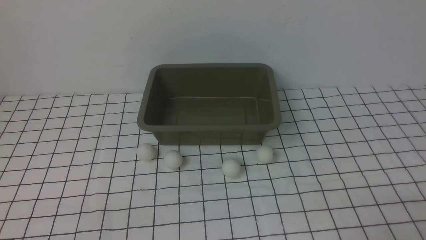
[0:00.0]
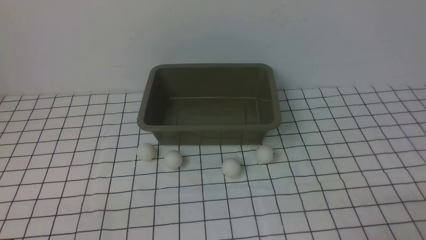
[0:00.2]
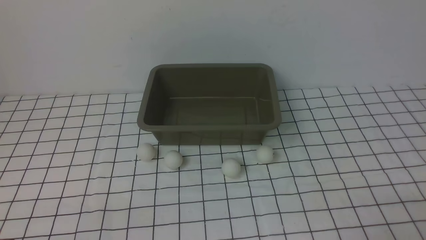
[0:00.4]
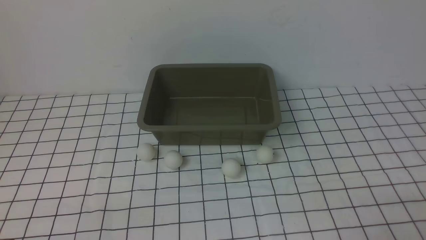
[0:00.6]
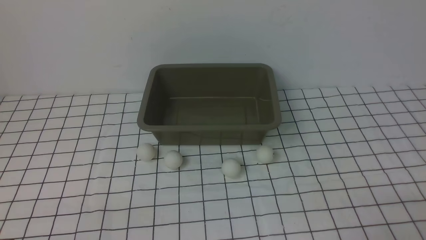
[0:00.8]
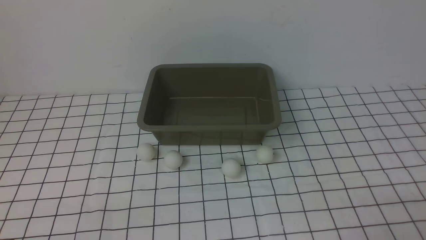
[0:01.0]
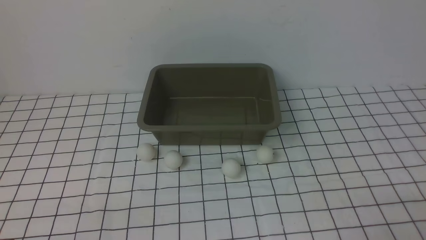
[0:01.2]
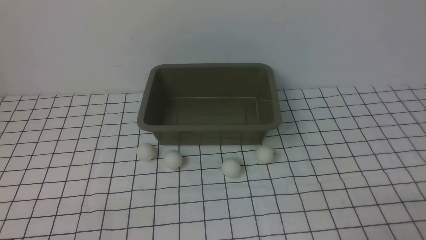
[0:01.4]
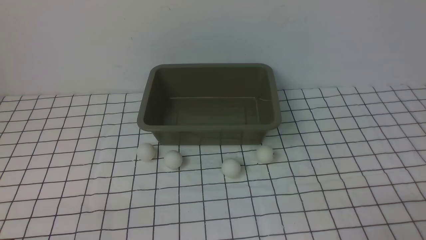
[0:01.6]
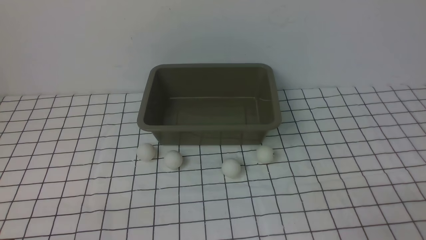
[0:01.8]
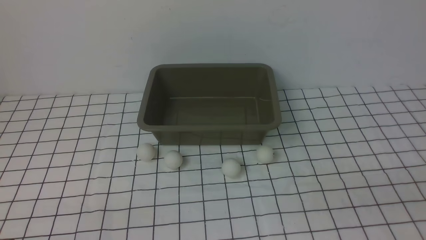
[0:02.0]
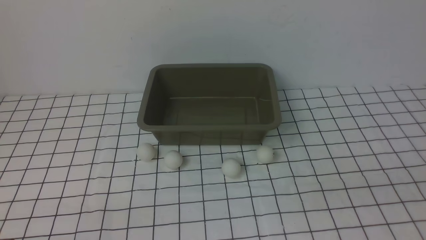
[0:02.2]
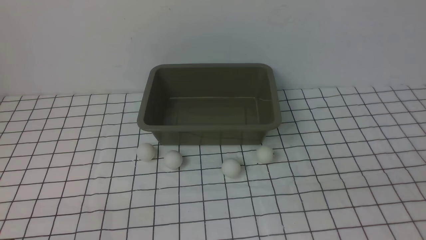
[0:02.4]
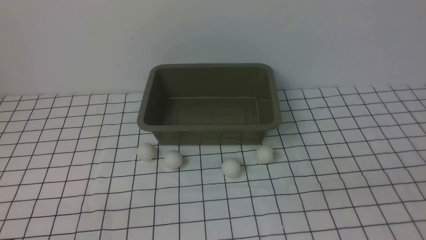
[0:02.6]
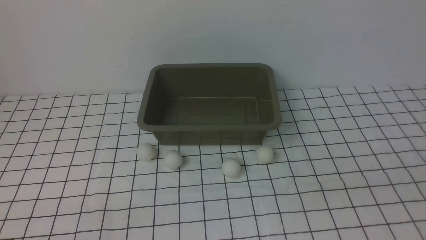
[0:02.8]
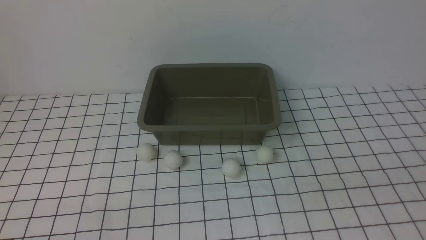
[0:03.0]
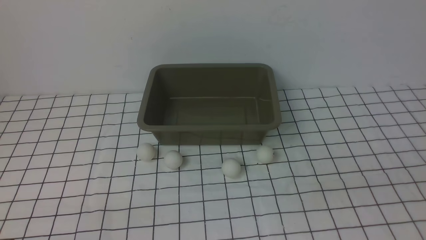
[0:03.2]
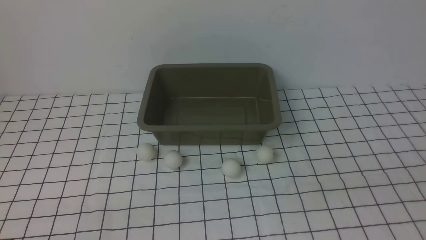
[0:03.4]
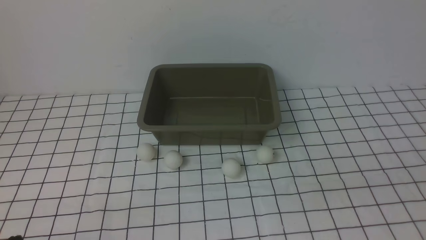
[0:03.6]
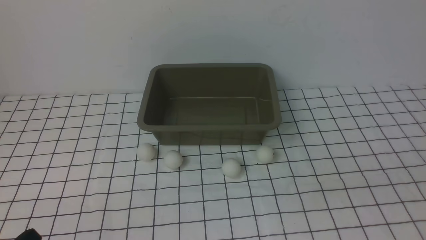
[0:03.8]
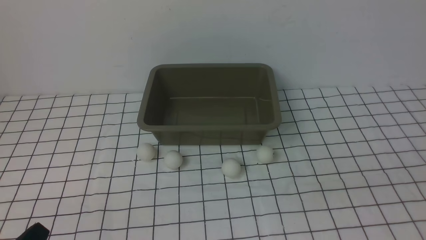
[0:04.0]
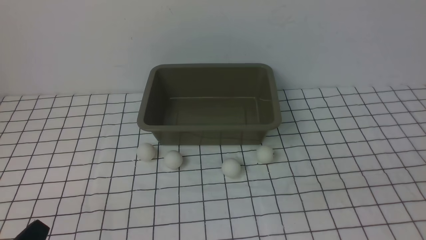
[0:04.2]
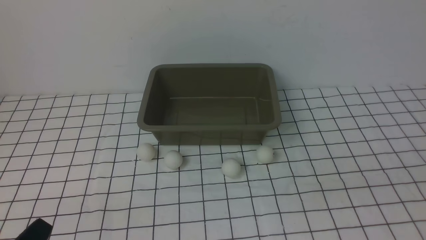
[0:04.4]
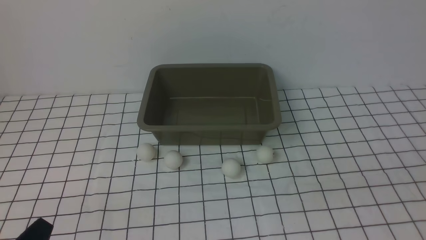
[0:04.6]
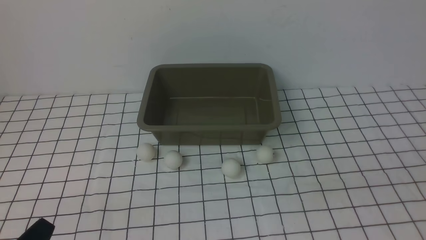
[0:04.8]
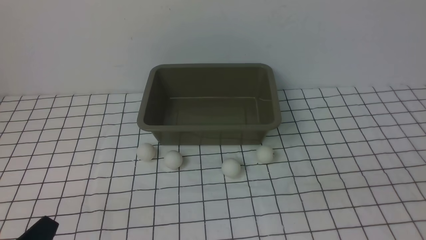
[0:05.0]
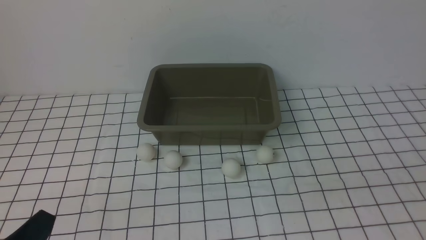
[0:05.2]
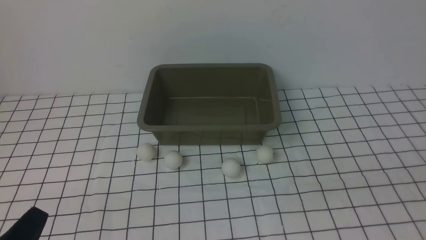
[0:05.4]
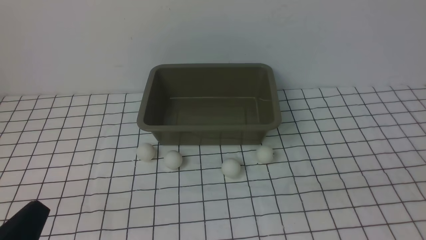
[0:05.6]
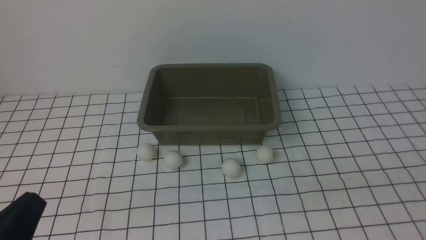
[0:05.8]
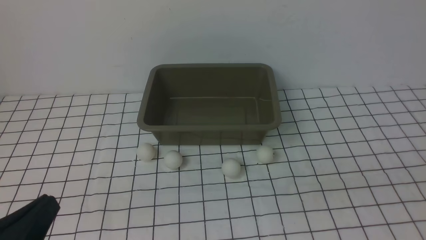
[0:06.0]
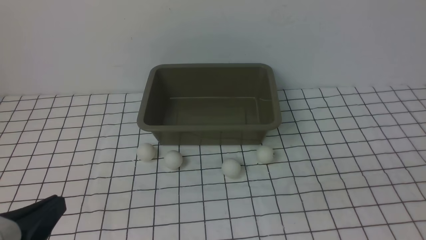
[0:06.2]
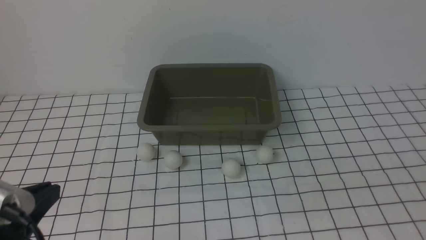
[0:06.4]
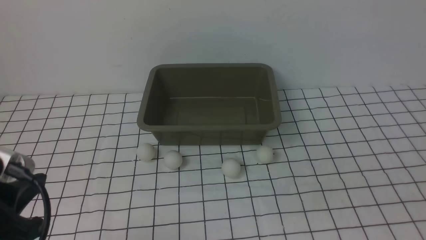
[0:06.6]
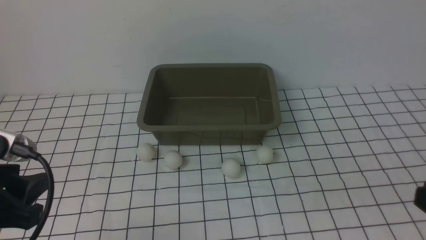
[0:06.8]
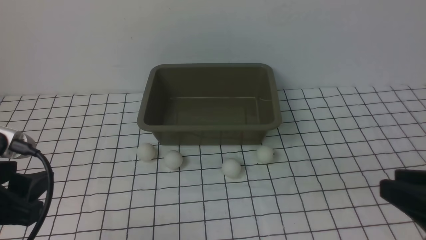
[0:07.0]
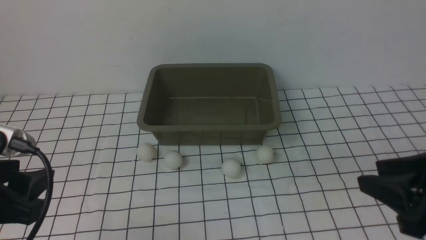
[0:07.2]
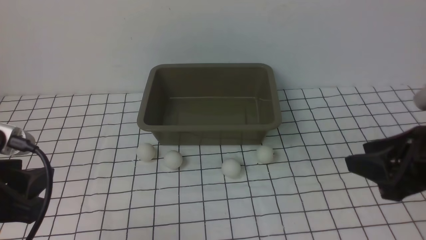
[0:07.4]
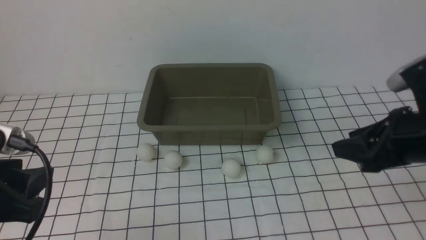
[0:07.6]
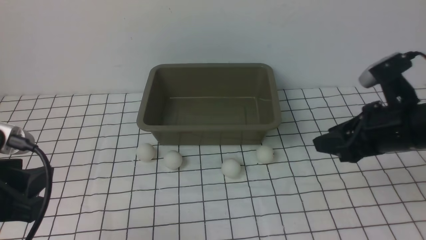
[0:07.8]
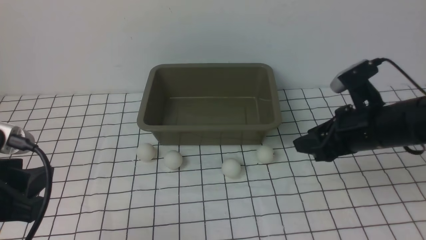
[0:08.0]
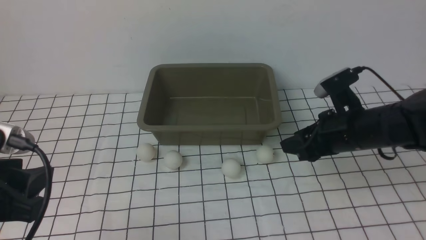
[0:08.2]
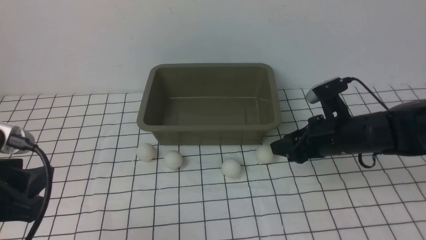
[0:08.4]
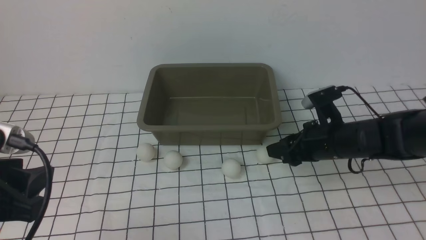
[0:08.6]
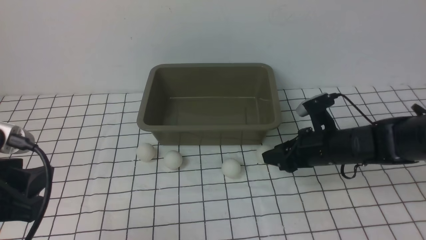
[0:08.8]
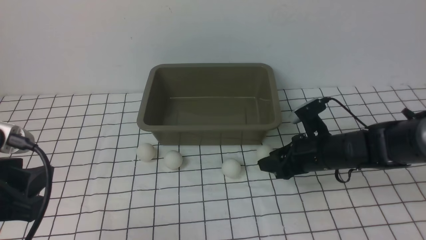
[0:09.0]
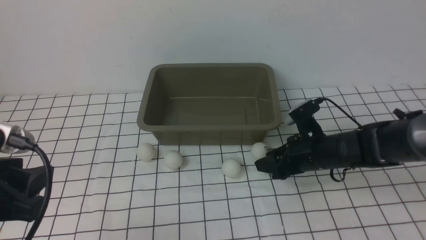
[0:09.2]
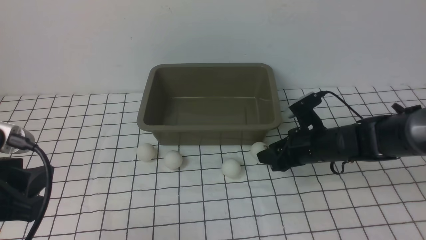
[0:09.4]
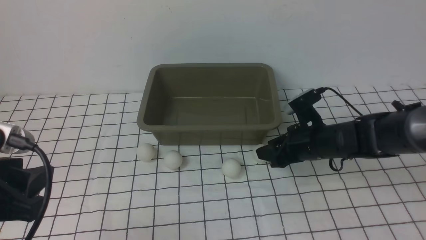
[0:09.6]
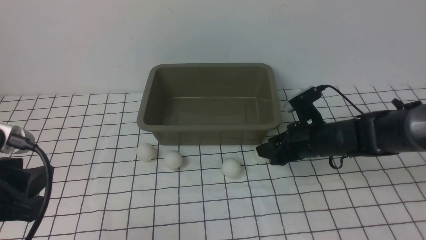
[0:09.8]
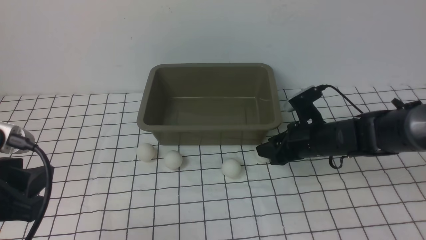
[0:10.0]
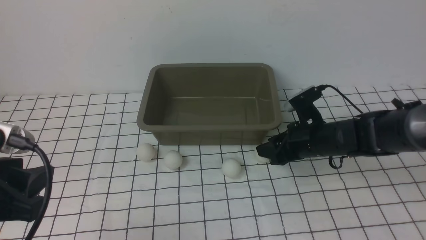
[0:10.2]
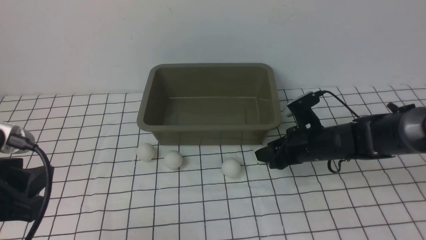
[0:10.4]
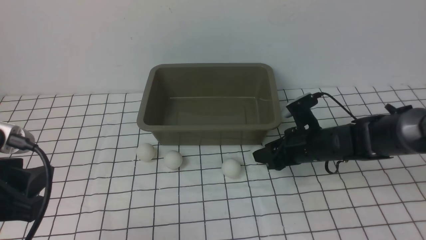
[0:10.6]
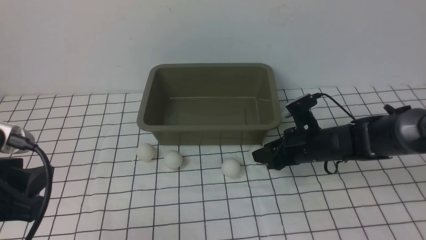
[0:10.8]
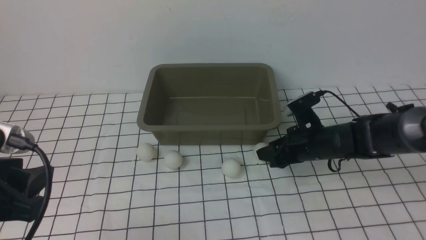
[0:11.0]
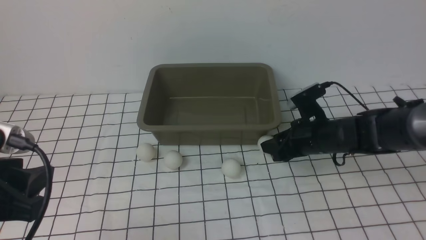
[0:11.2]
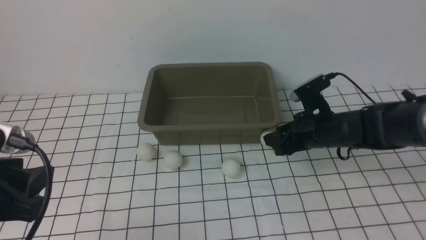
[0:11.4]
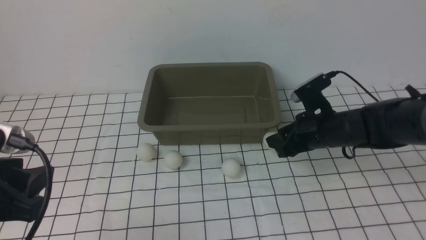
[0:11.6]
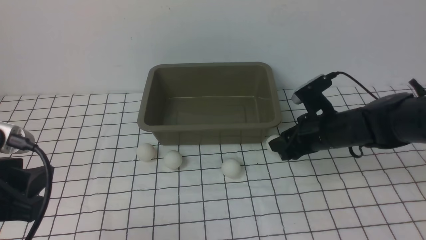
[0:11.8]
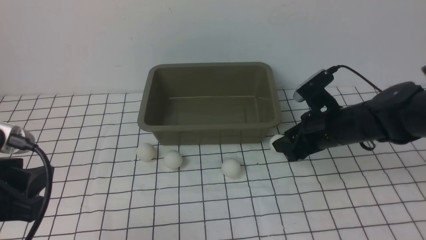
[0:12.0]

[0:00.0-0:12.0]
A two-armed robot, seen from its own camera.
Step, 0:00.0 to 0:11.4: use the right arm to clamp the table tennis ball closest to it.
0:00.0 to 0:01.6: Neither gripper changes place.
0:04.4 to 0:06.0: The left gripper heads upward, covering approximately 5 cm.
0:06.0 to 0:07.6: The right gripper is displaced forward by about 25 cm, and opens up. The left gripper moves forward, some 5 cm, and opens its fingers.
0:07.6 to 0:09.0: The right gripper moves downward, forward and to the left, about 15 cm.
0:09.0 to 0:10.4: The grippers stay close to where they were, moving slightly.
0:10.4 to 0:12.0: The right gripper is displaced upward by some 10 cm.

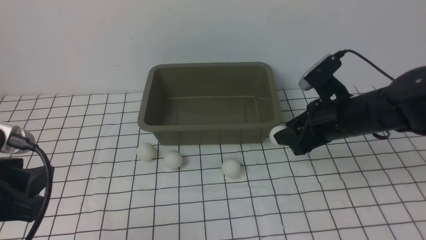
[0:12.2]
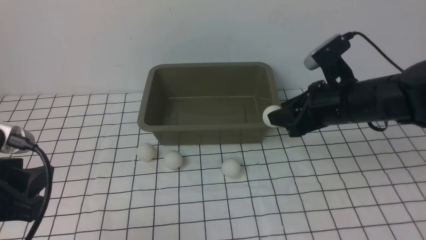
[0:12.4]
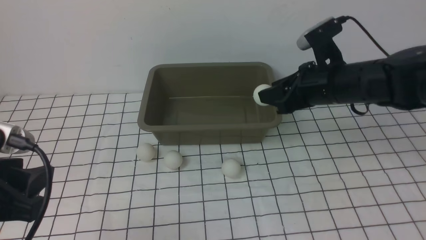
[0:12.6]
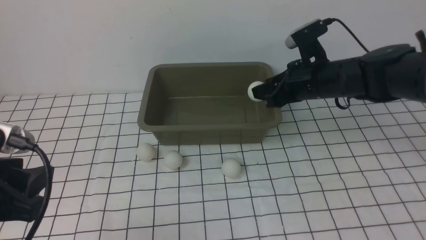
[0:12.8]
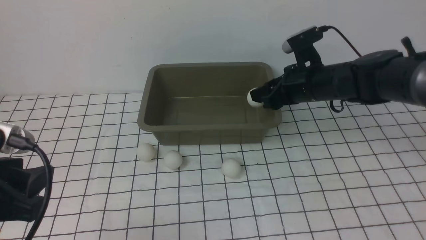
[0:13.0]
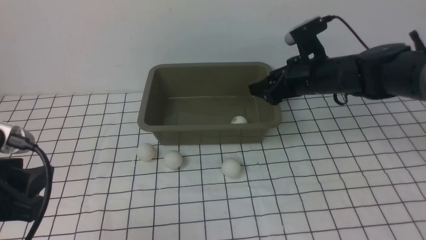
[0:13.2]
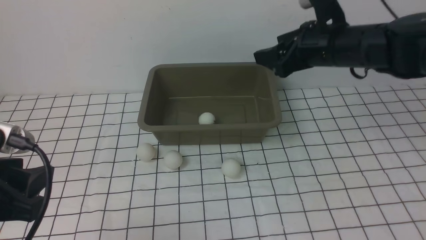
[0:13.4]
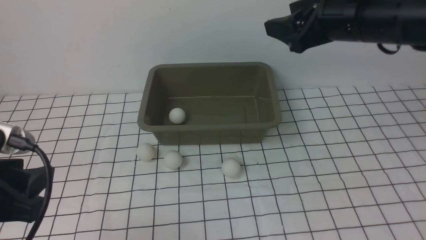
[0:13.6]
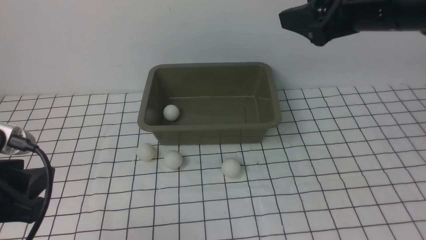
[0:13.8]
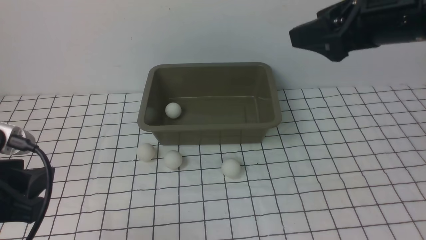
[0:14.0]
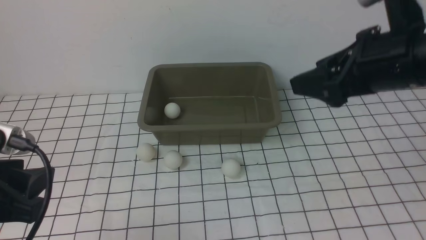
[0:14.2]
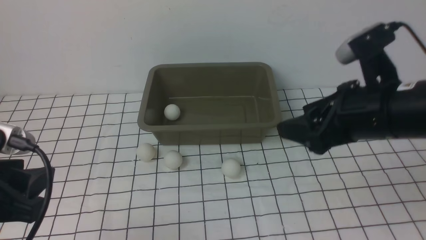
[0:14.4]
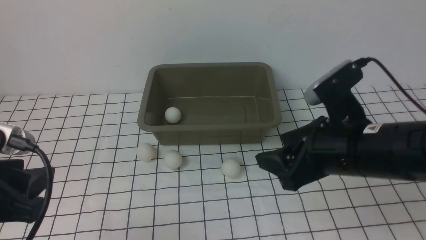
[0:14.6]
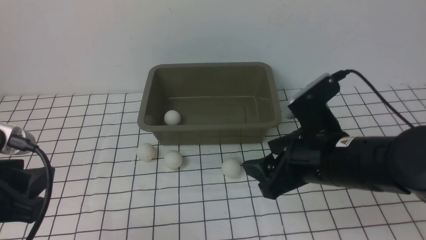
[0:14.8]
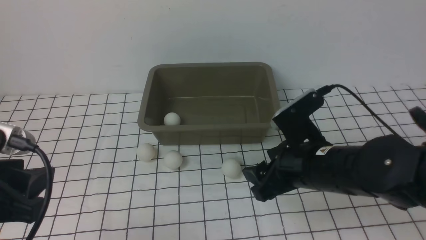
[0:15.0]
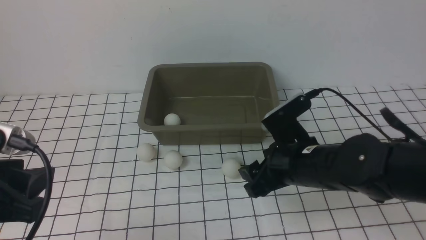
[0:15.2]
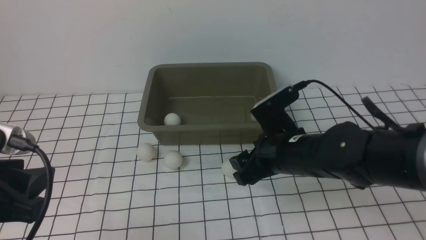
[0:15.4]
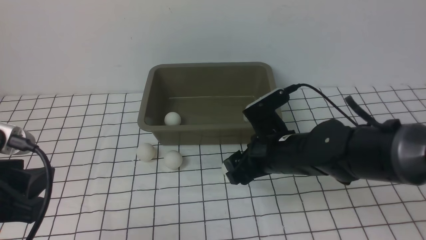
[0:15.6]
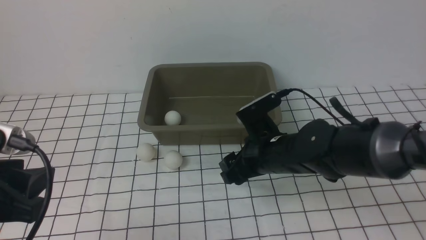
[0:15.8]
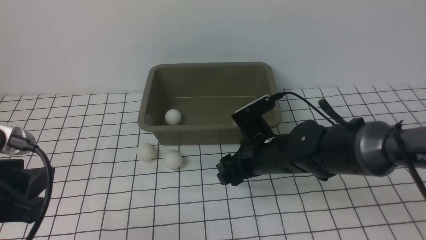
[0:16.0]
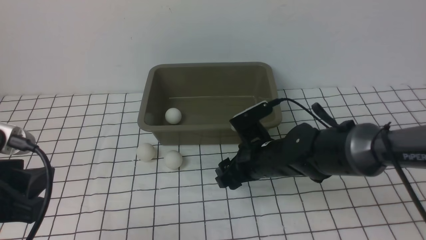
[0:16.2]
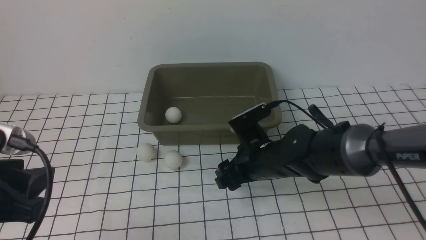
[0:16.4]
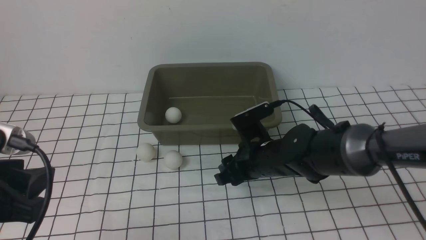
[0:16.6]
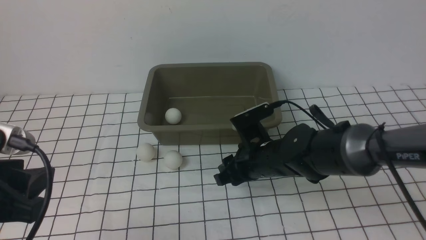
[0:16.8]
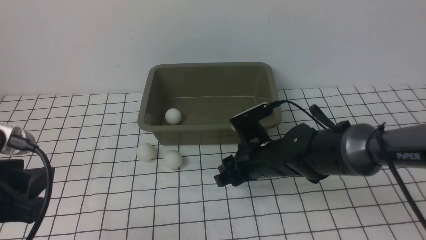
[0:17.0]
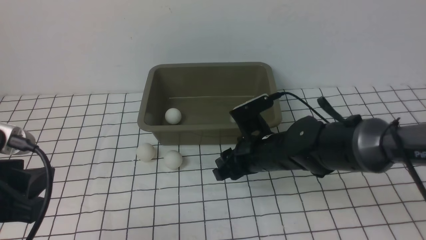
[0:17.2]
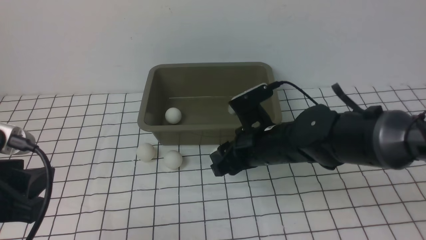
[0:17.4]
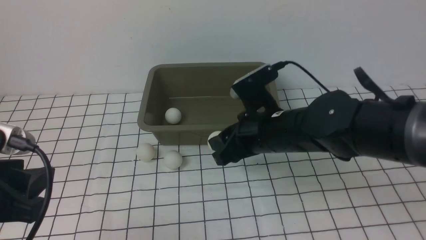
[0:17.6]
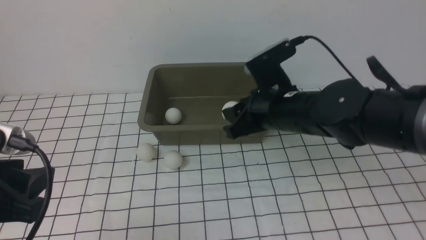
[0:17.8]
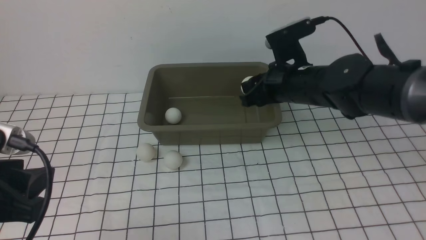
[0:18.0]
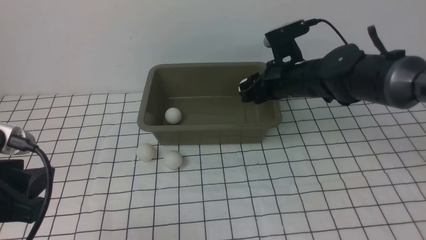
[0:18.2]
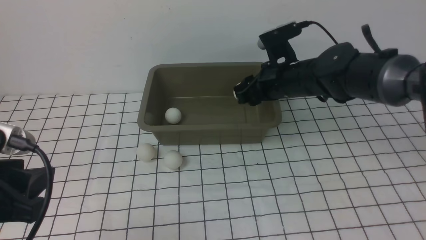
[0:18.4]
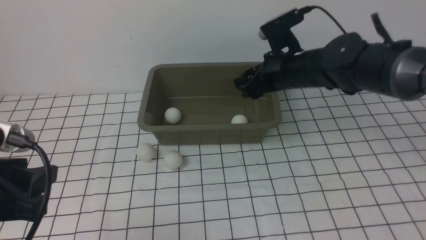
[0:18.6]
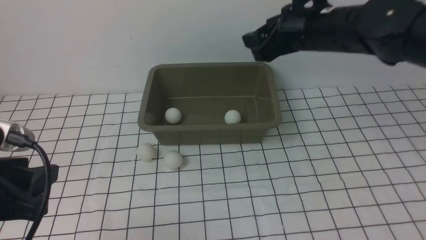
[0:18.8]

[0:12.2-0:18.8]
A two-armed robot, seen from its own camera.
Step, 0:12.2 to 0:13.2: use the right arm to put the table tennis ball into the box.
Step, 0:13.4 to 0:17.2: use the right arm to clamp the table tennis ball closest to it.
Step, 0:17.4 to 0:18.6: use the right arm to put the table tennis ball into the box.
0:12.2 to 0:13.8: The right gripper shifts some 15 cm upward, and opens its fingers.
0:13.8 to 0:15.4: The right gripper travels downward and to the left by approximately 20 cm.
0:15.4 to 0:17.2: The right gripper closes.
0:17.2 to 0:18.8: The right gripper is displaced upward and to the right by roughly 25 cm.
